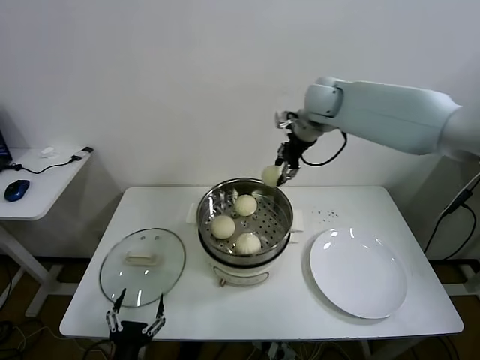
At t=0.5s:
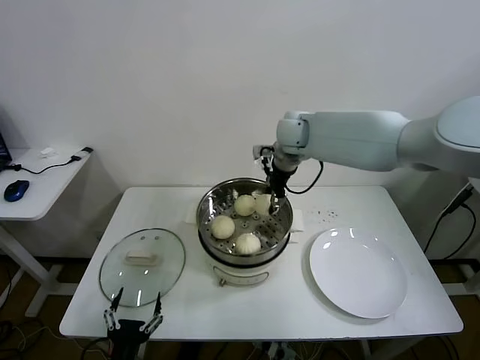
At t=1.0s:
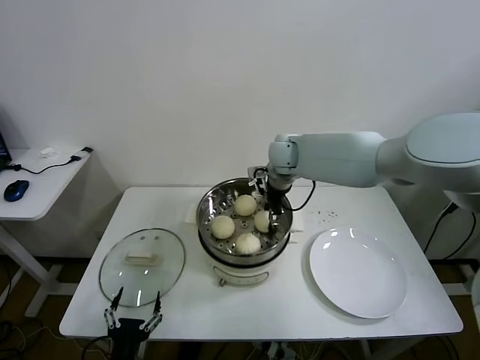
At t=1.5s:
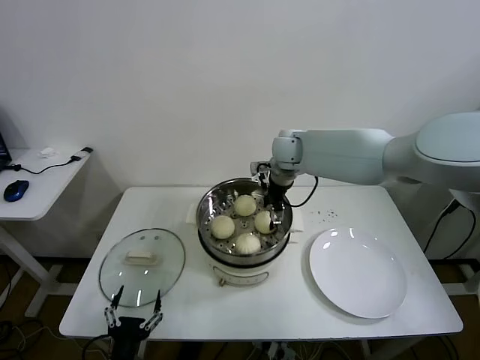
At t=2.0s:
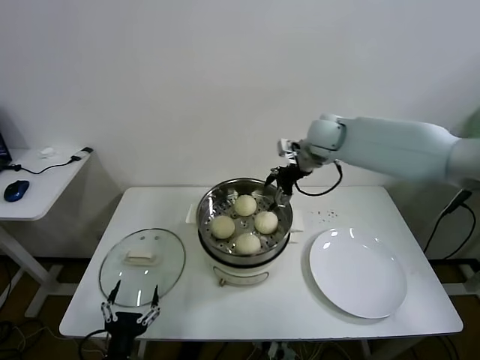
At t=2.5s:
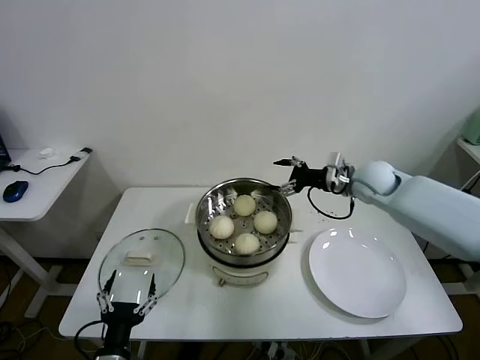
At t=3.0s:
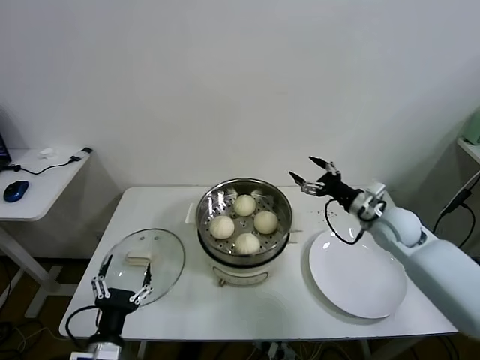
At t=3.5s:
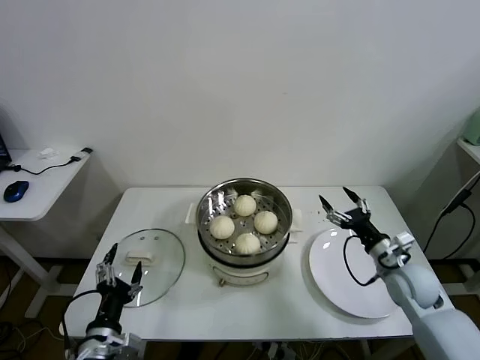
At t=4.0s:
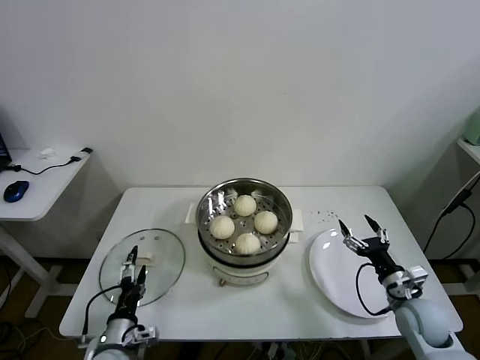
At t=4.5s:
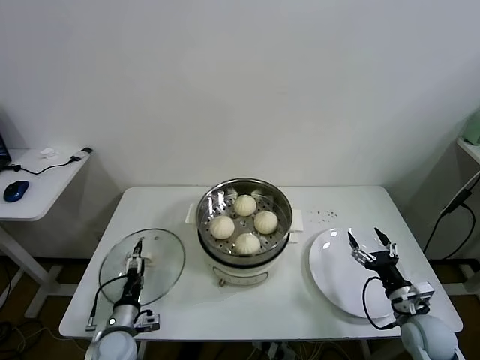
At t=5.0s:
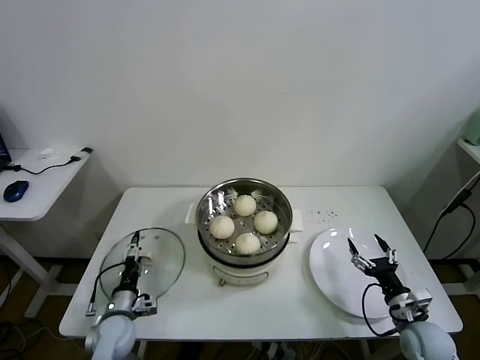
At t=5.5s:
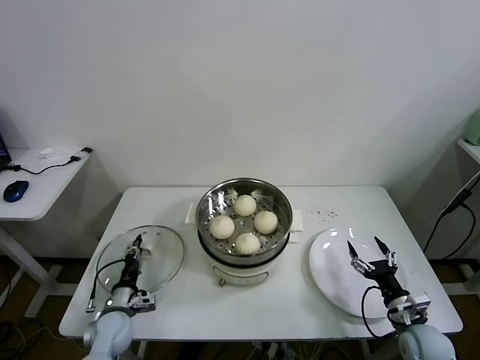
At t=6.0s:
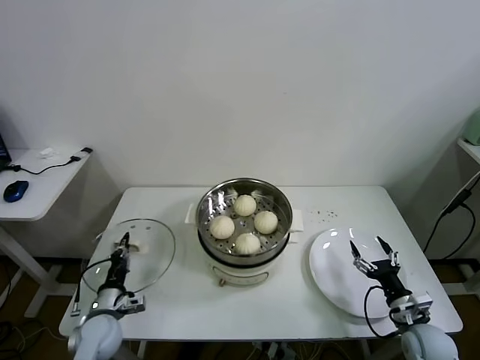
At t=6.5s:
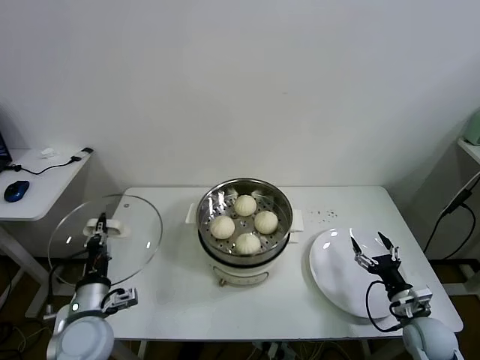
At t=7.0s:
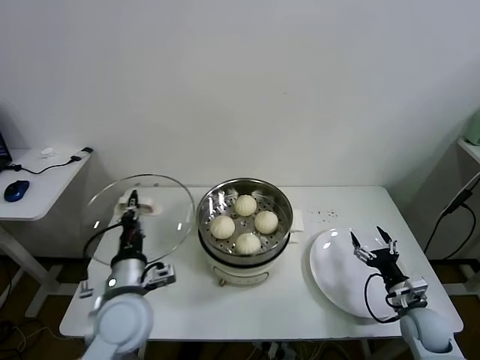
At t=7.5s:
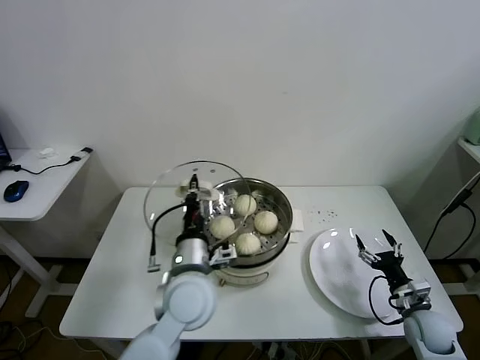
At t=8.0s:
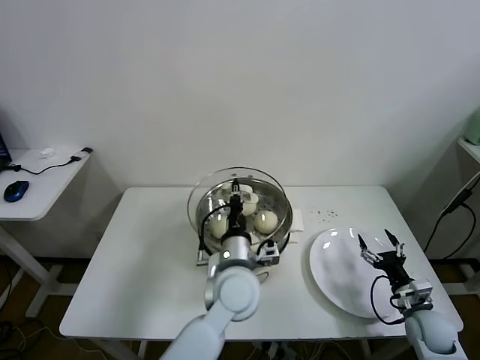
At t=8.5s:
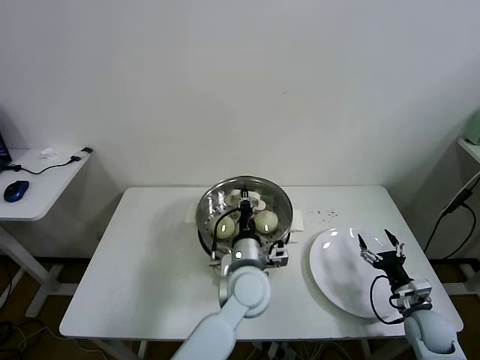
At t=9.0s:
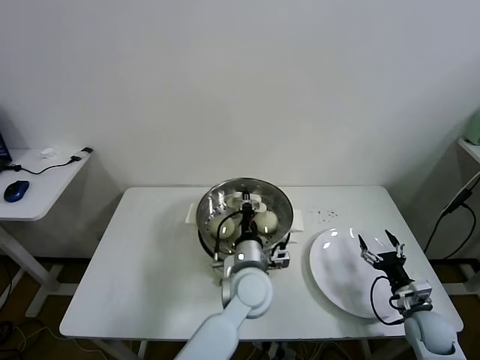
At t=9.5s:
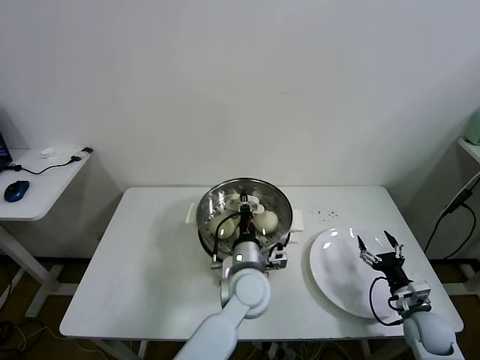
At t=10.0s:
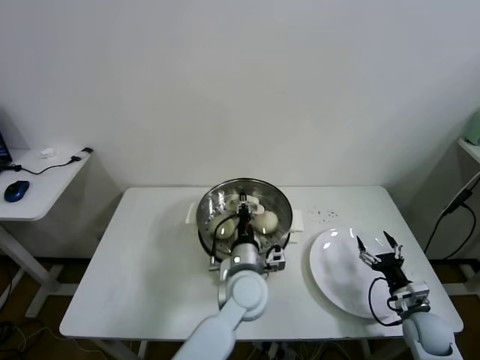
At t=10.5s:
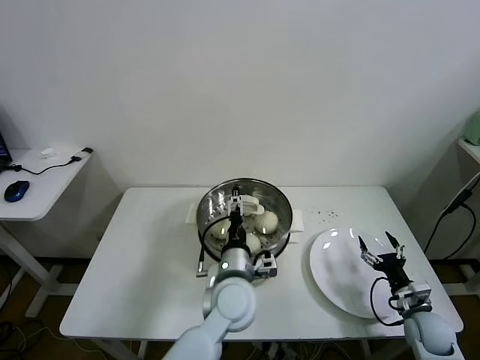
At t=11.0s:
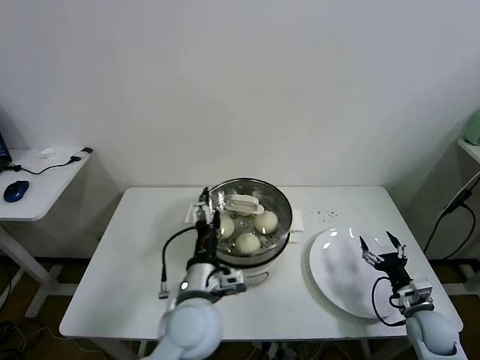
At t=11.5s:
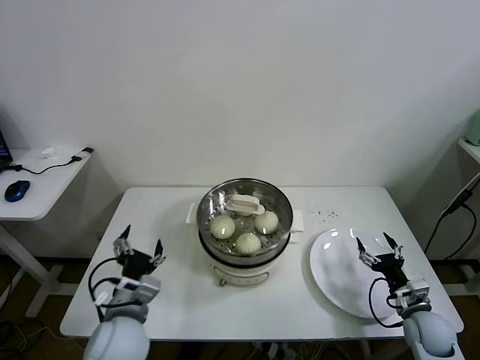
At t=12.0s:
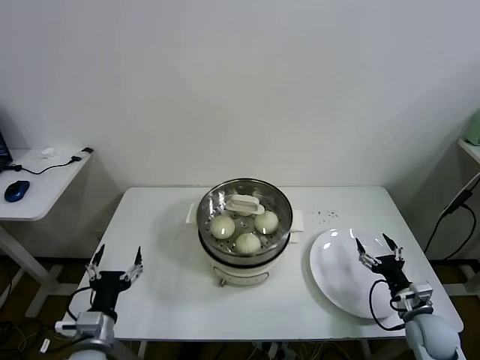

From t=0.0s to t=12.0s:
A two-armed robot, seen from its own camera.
Task of the whole recording: take steamed baozi put them in steamer.
Step, from t=2.0s to t=5.5s: Grasp the pot lid with left gripper.
Step, from t=6.0s to t=10.0s: Place the pot lid on the steamer with left gripper.
From t=0.0s to t=2.0s: The right gripper travels downward by about 10 cm, and opens up.
From t=2.0s to t=4.0s: The left gripper heads forward, covering about 10 cm, while the right gripper heads backward, downward and to the right, covering roughly 50 cm.
From t=4.0s to t=6.0s: The left gripper shifts roughly 10 cm forward and to the left, and closes; the right gripper moves about 5 cm.
From t=6.0s to t=8.0s: The left gripper heads to the right and upward, covering roughly 35 cm.
From t=8.0s to t=10.0s: The left gripper moves downward, approximately 5 cm.
From t=10.0s to t=12.0s: The left gripper is displaced to the left and backward by approximately 35 cm, and opens up.

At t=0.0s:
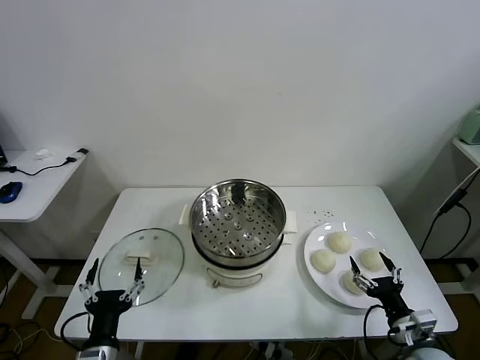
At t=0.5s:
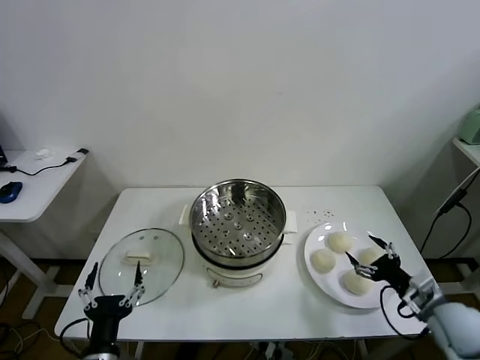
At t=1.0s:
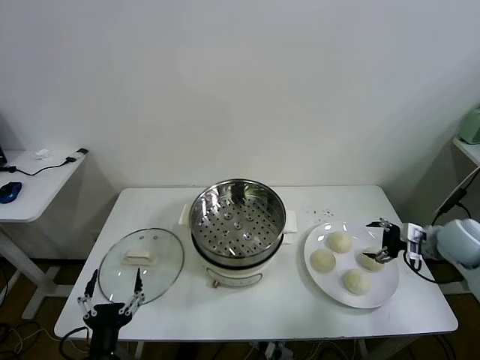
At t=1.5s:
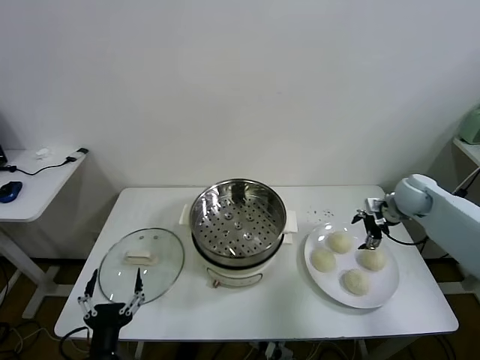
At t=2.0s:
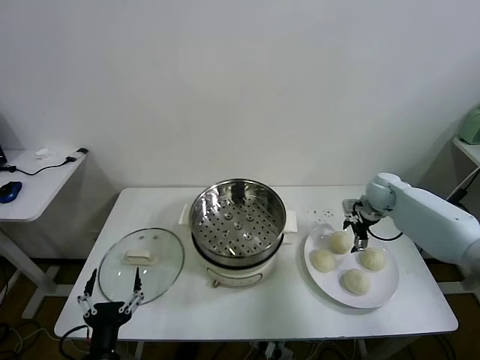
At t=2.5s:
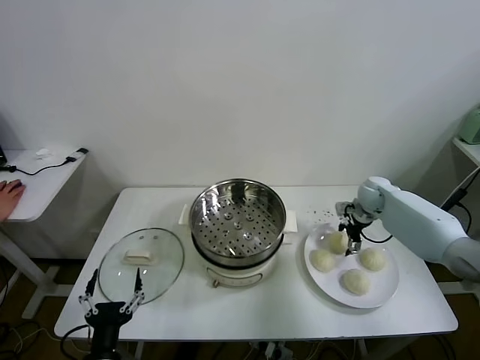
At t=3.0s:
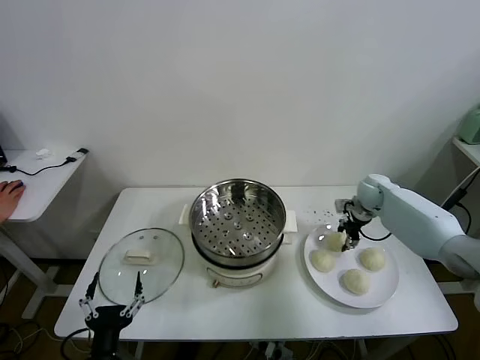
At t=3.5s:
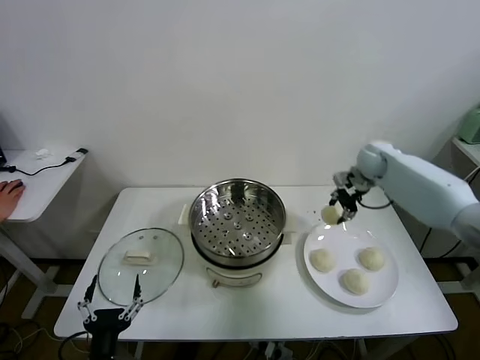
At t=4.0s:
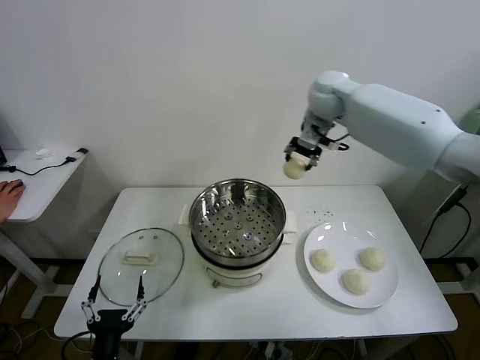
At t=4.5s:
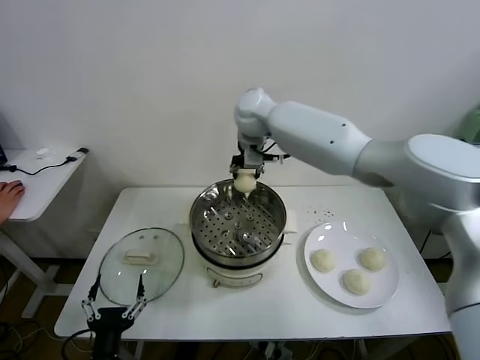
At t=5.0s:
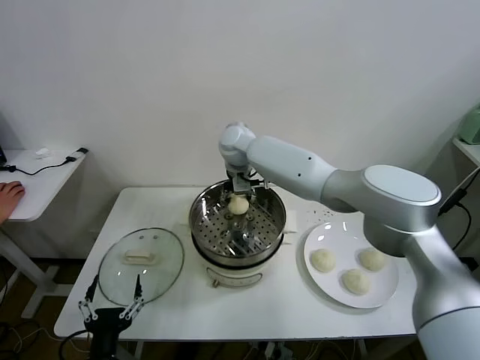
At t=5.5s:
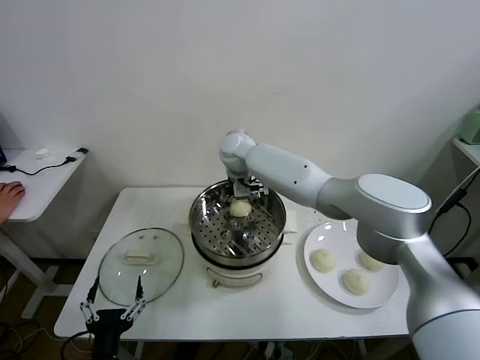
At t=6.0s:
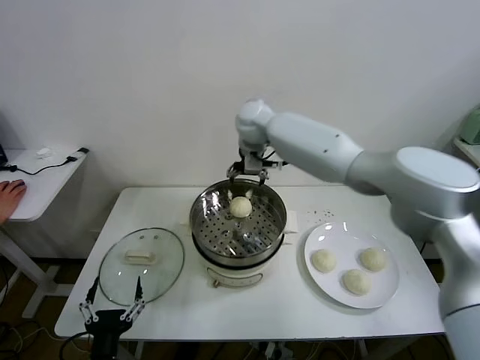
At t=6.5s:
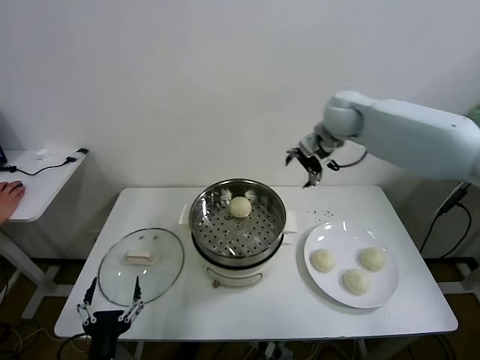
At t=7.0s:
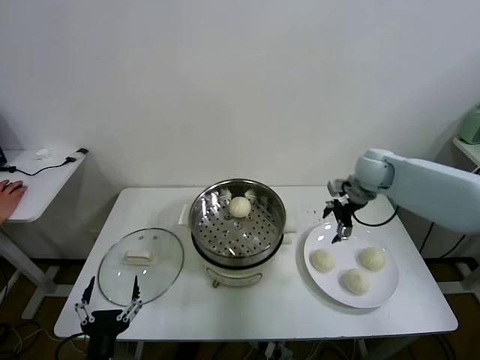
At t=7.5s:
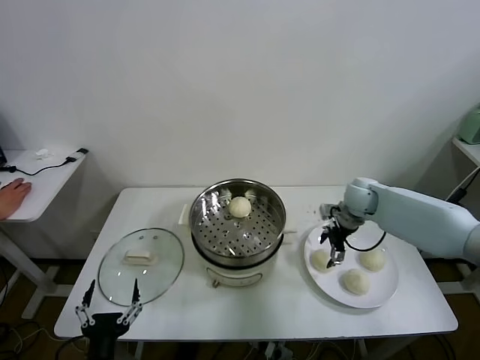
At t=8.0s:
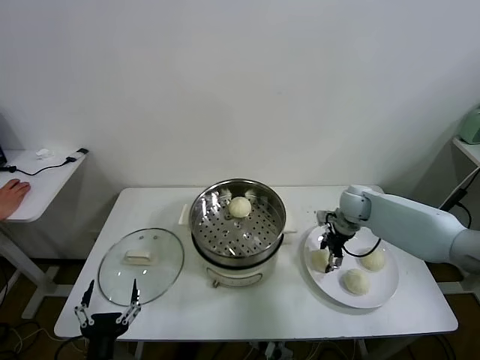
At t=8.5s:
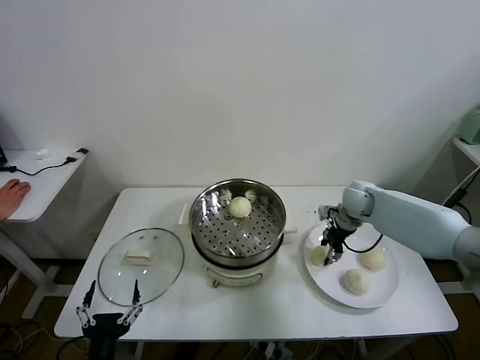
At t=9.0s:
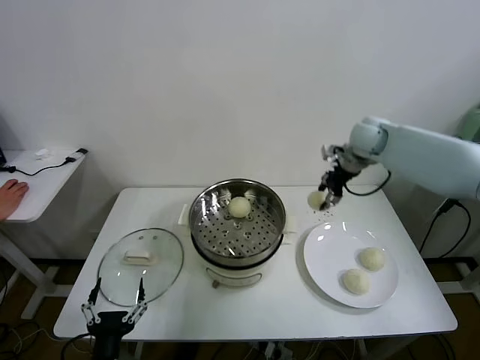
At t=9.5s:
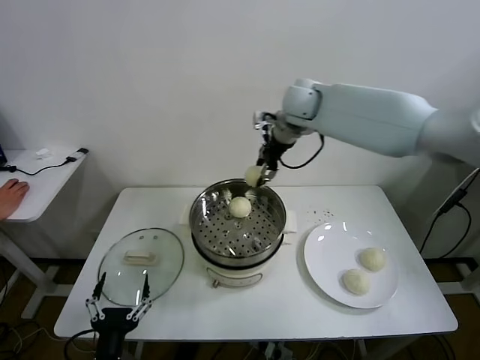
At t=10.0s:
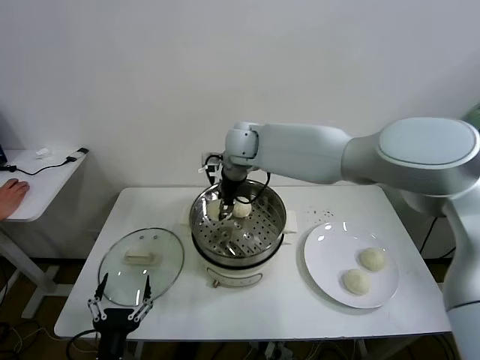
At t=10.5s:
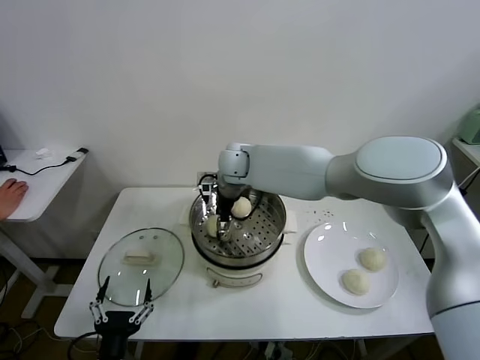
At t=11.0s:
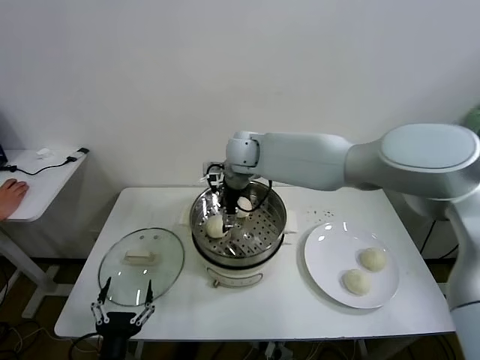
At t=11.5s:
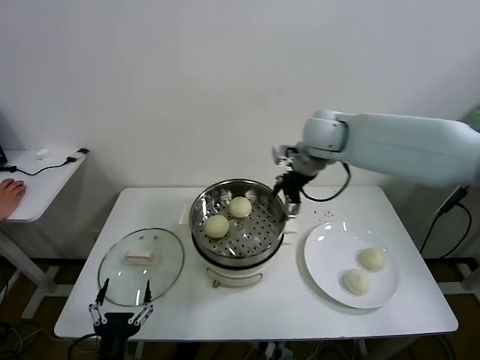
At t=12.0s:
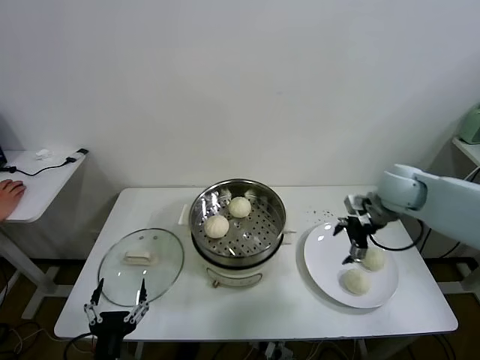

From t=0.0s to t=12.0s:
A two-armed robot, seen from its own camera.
Task of the whole recording: take steamed baozi put them in steamer.
Step, from t=0.0s to t=2.5s: Grasp the baozi in the plate with right gripper.
Step, from t=3.0s to t=5.5s: Place the baozi on the steamer with right gripper.
Step, from t=6.0s to t=8.0s: Grasp the baozi in the plate with right gripper.
Step, from t=8.5s to t=10.5s: Place the baozi on the steamer with right gripper.
From t=2.0s to t=4.0s: The right gripper heads upward and to the left, covering some 40 cm, and closes.
From t=4.0s to t=6.0s: The right gripper moves some 15 cm downward and comes back, and opens its fingers.
From t=6.0s to t=8.0s: The right gripper is displaced downward and to the right by about 35 cm, and closes up.
From t=8.0s to t=10.0s: The right gripper moves to the left and upward, approximately 35 cm.
From t=10.0s to t=12.0s: The right gripper moves to the right, roughly 35 cm, and opens up.

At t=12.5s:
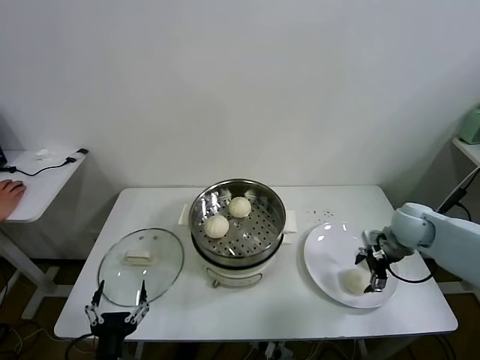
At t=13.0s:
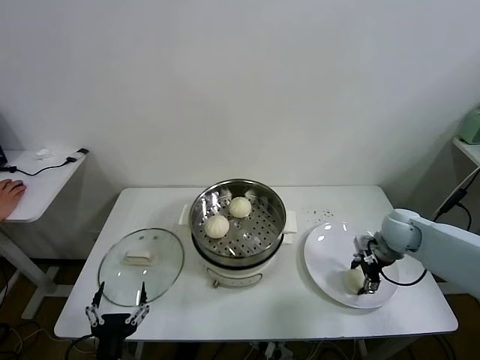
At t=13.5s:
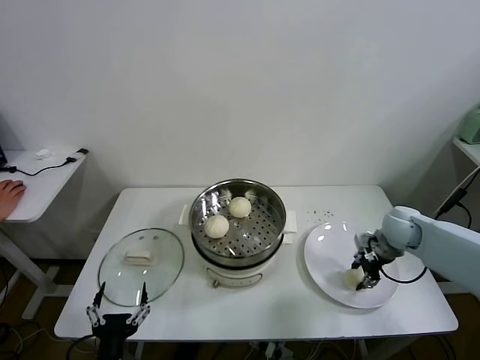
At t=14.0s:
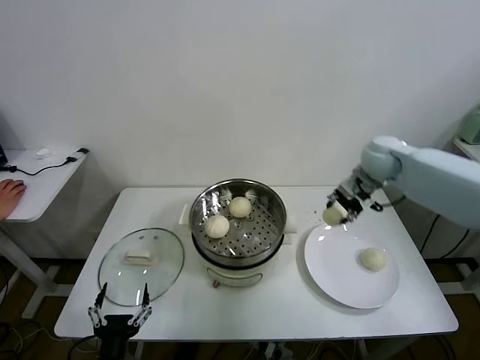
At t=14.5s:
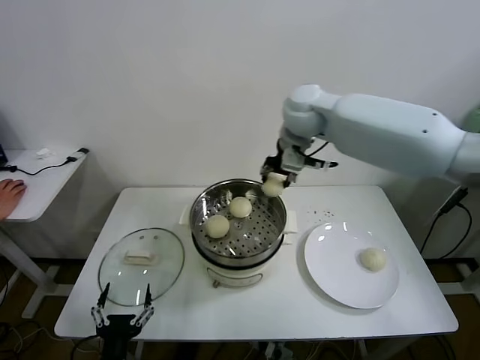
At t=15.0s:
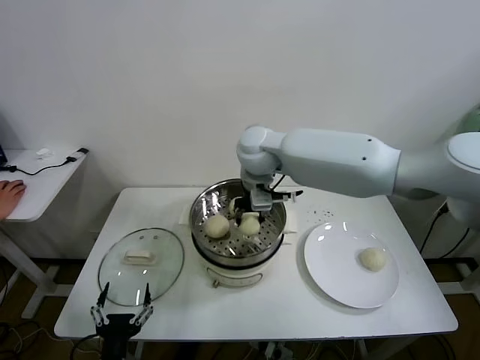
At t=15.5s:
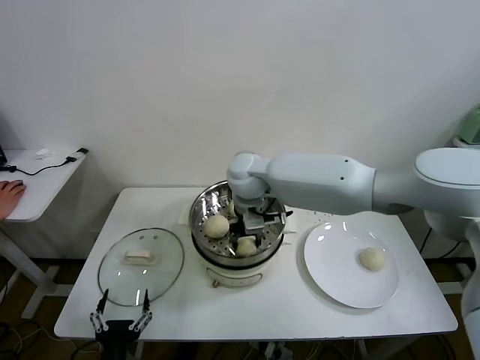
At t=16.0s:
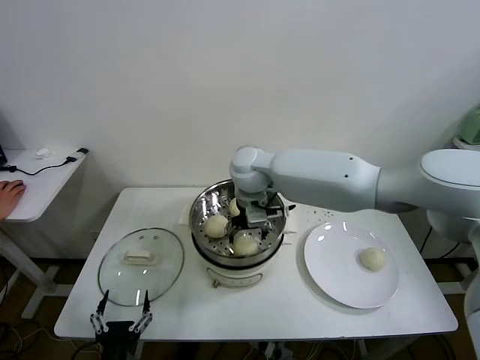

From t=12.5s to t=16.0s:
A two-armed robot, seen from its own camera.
Task of the whole recording: take steamed baozi put them in steamer.
Step, from t=13.5s to t=15.5s: Place the baozi on the steamer with right gripper.
From t=12.5s to t=14.5s: The right gripper heads to the left and upward, covering some 40 cm, and closes.
From t=14.5s to t=16.0s: The right gripper heads downward and to the left, covering roughly 10 cm, and opens.
